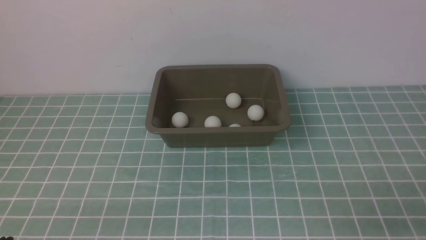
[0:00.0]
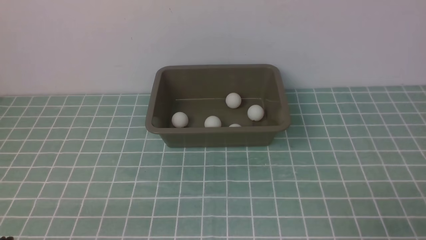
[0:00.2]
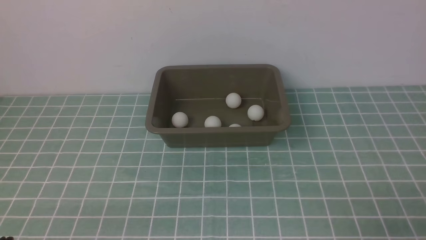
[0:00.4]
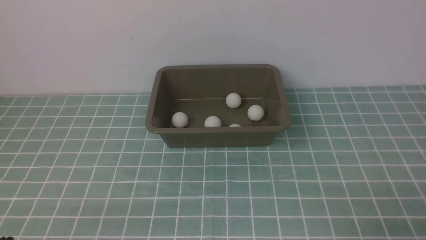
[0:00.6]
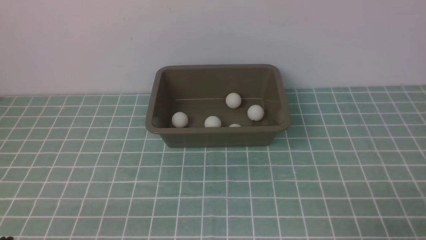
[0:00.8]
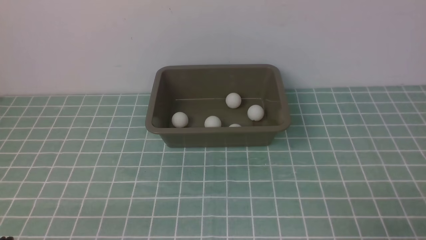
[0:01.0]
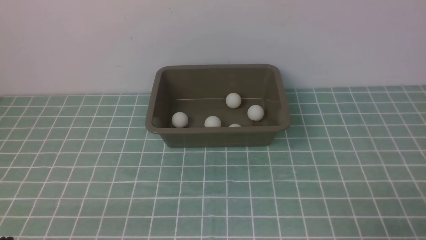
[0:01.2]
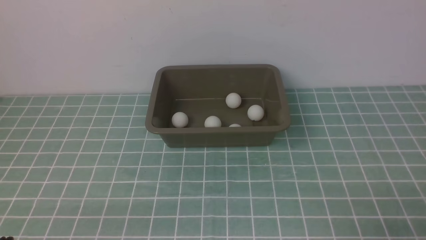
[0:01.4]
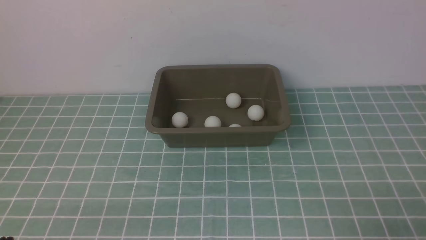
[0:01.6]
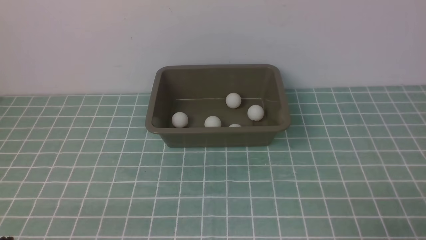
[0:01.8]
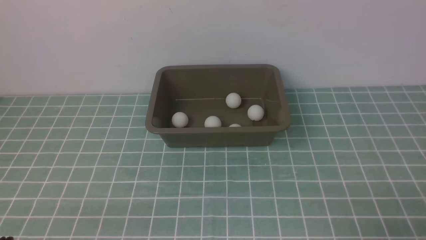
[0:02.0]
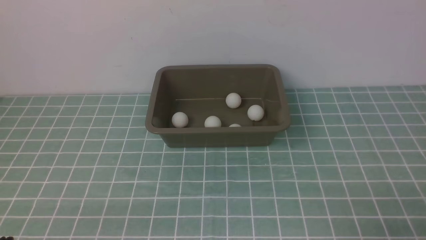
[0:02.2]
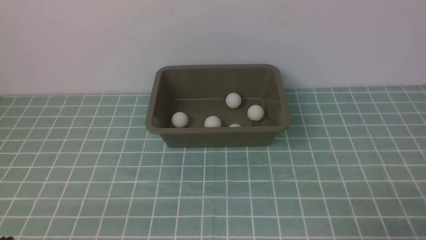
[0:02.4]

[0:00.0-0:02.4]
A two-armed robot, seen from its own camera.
0:01.2 to 0:02.4: Both grippers stay about where they are.
